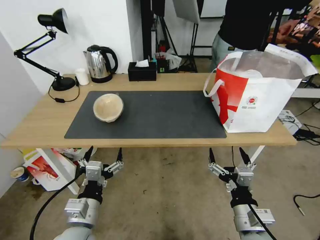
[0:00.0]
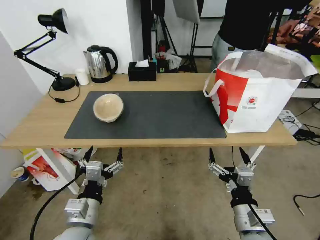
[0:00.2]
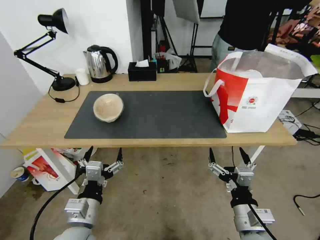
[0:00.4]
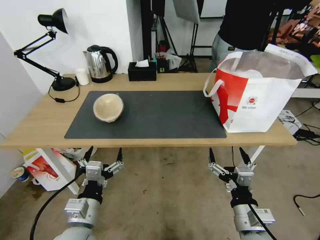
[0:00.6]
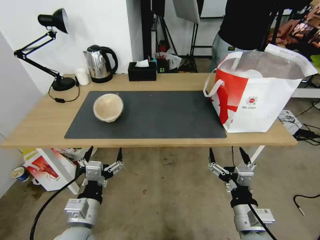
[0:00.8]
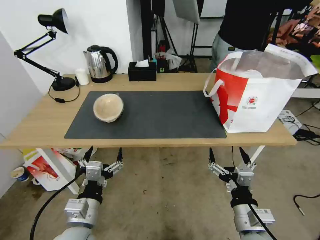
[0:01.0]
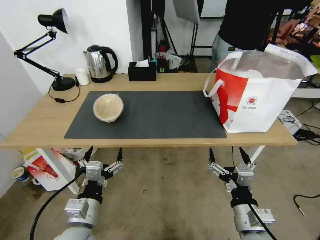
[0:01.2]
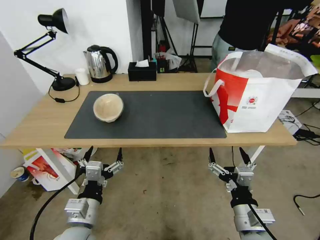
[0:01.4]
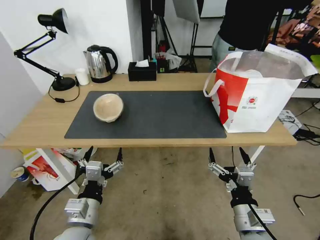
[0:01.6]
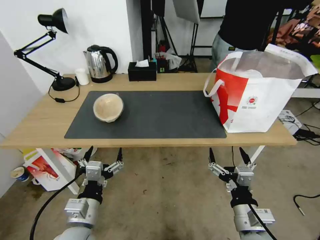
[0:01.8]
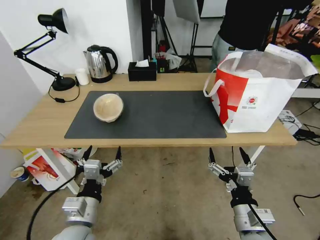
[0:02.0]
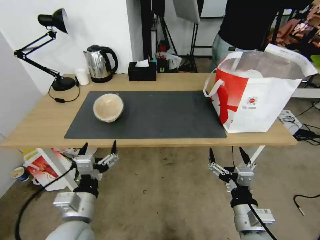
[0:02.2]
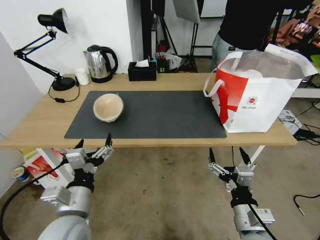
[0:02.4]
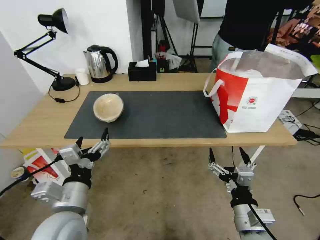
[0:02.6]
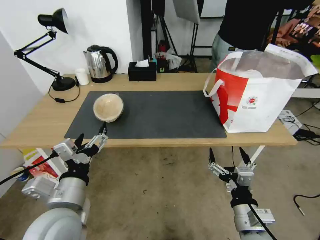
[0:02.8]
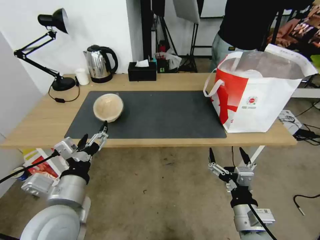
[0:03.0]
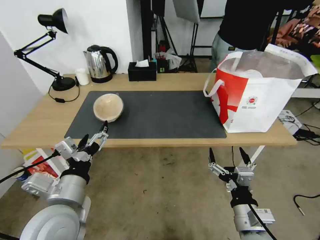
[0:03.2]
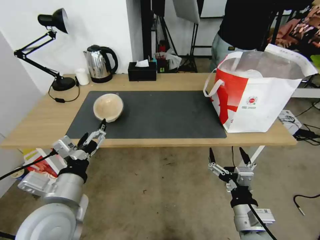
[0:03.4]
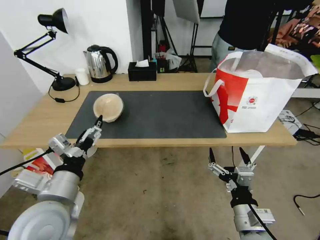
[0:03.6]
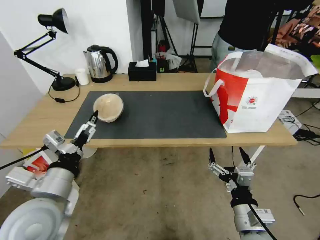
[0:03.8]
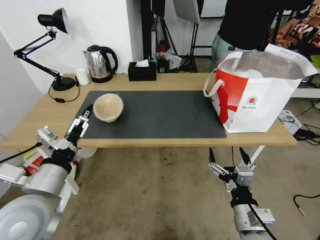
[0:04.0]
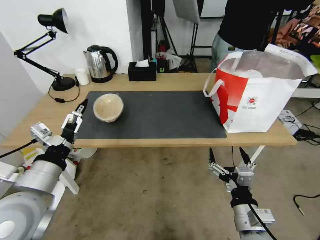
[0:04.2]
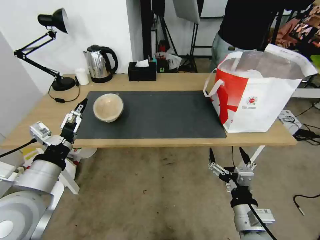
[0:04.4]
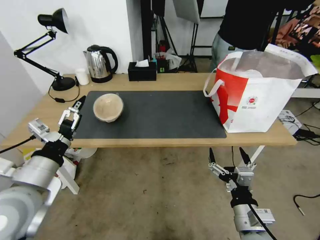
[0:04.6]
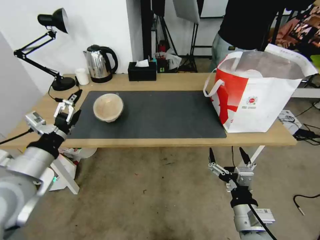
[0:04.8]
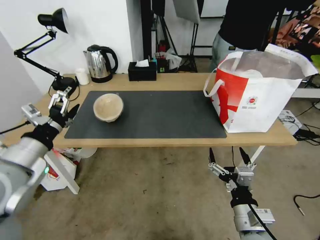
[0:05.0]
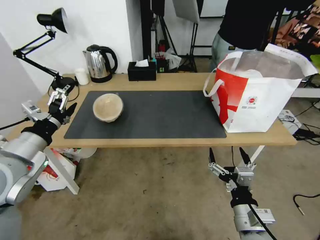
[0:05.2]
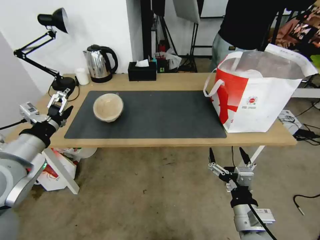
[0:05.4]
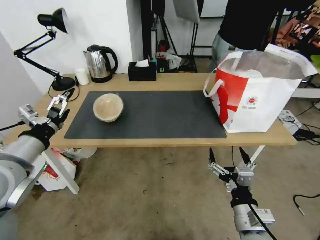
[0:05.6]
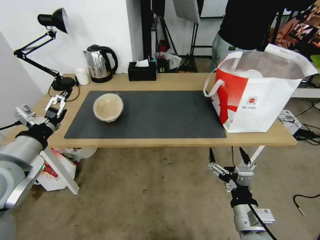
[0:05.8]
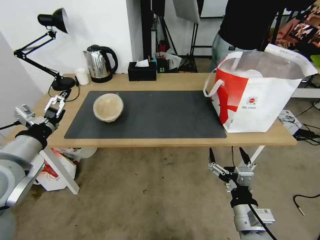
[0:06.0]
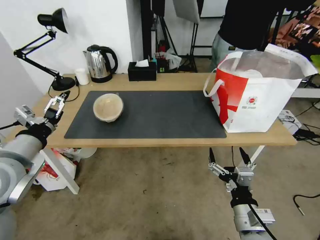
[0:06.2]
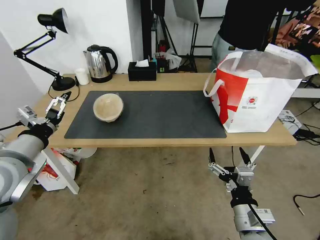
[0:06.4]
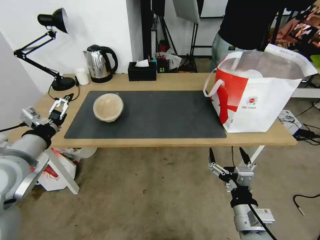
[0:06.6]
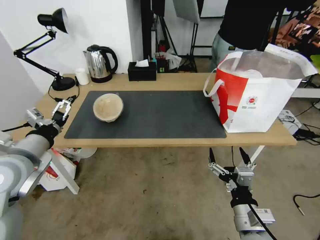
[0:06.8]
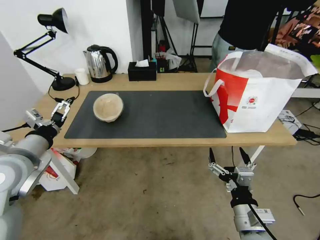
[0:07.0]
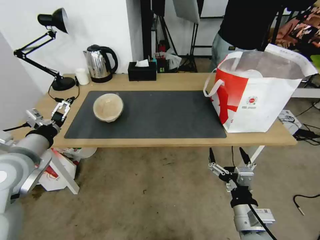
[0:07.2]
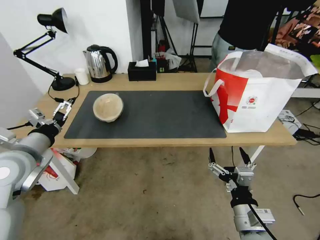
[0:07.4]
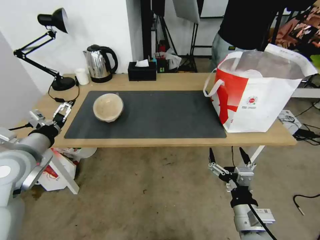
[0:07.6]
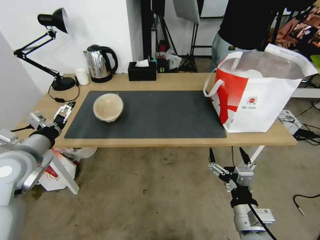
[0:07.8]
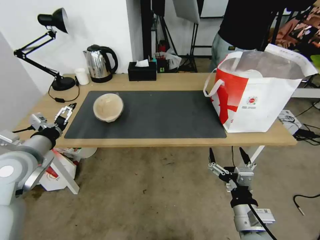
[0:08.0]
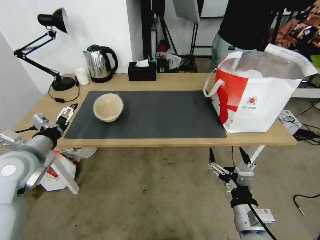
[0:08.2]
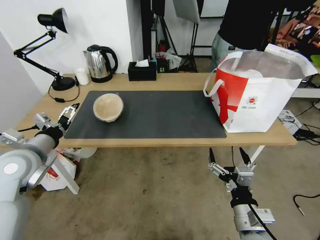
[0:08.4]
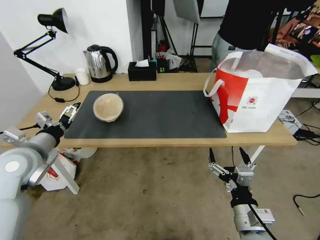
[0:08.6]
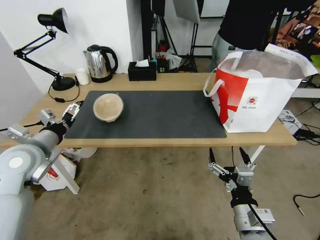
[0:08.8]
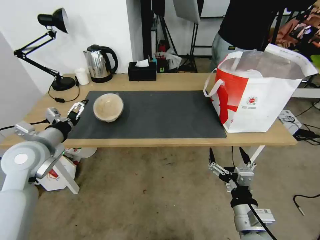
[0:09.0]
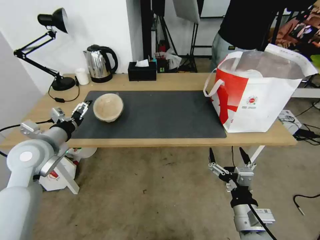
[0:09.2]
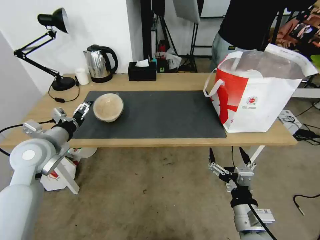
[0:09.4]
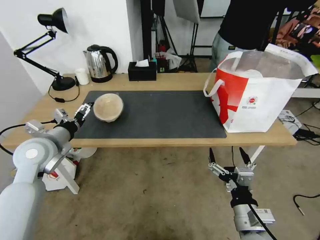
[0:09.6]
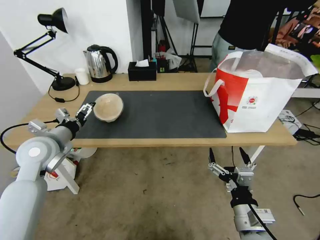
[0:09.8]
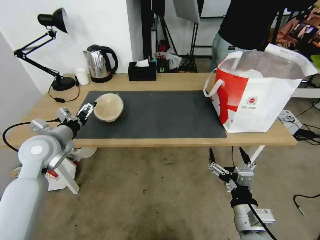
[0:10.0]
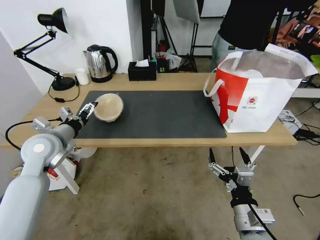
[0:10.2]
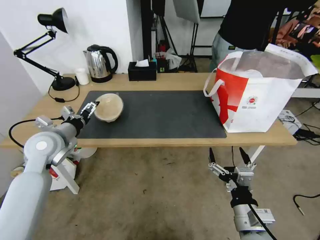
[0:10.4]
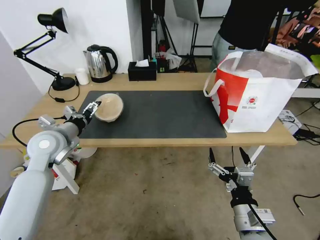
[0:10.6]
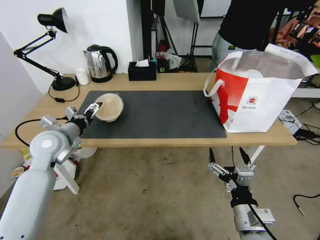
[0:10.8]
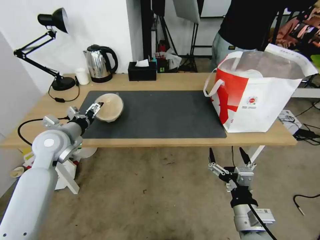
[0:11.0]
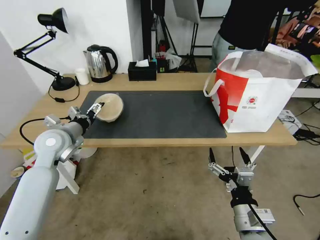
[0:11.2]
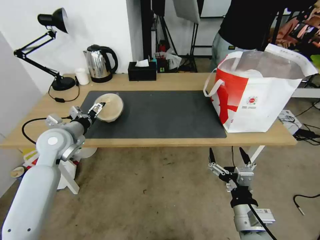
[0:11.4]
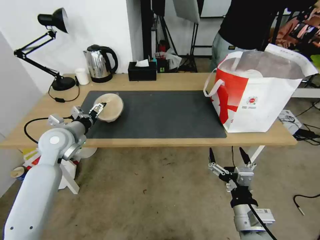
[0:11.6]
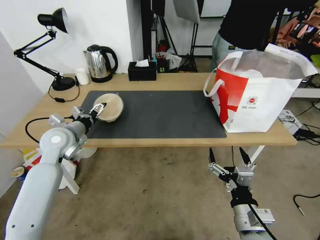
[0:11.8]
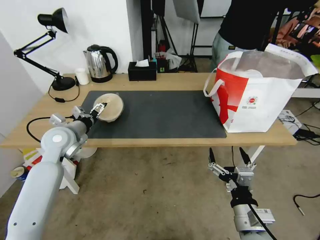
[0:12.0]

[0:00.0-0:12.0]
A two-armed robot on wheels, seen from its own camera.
Task of the whole recording: Pick up the trash from the table and place it into the takeout bag.
0:00.0 to 0:01.6: Both grippers stay about where they are.
0:01.6 to 0:03.0: The left gripper heads upward, covering approximately 10 cm.
0:03.0 to 0:04.4: The left gripper travels to the left by about 5 cm.
0:04.4 to 0:06.0: The left gripper moves to the left, some 5 cm.
0:06.0 to 0:07.6: The left gripper moves about 5 cm.
0:07.6 to 0:09.0: The grippers move only a little.
0:09.0 to 0:10.4: The left gripper shifts by about 5 cm.
0:10.4 to 0:12.0: There are only small adjustments of the grippers.

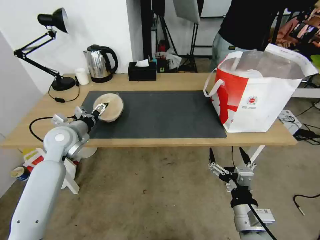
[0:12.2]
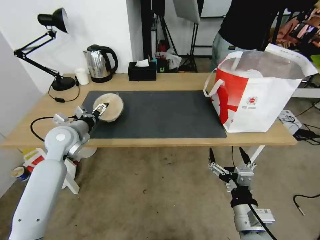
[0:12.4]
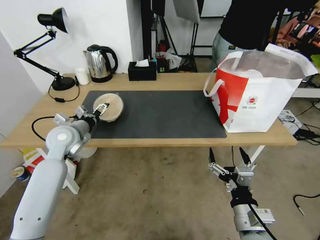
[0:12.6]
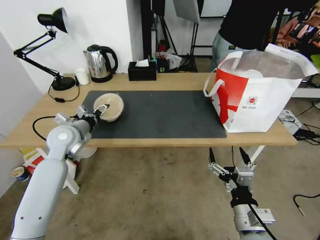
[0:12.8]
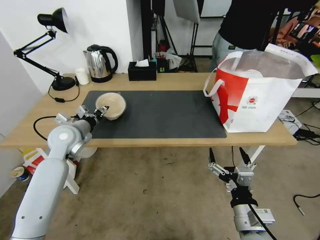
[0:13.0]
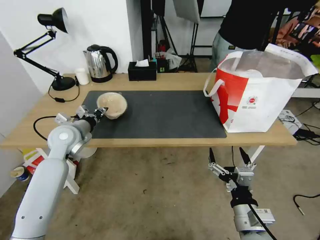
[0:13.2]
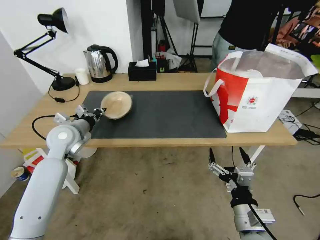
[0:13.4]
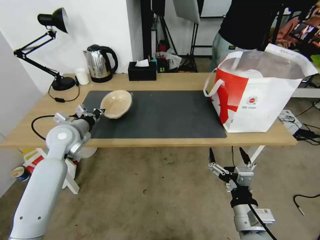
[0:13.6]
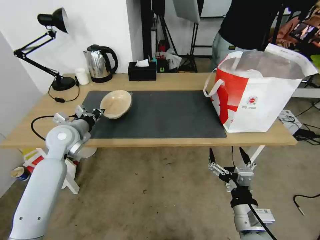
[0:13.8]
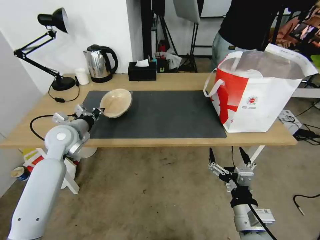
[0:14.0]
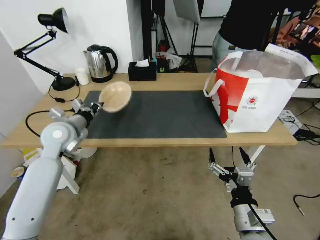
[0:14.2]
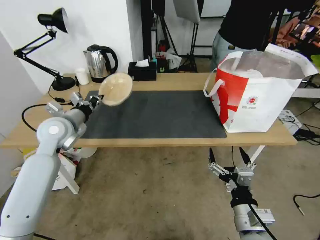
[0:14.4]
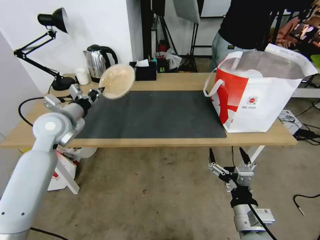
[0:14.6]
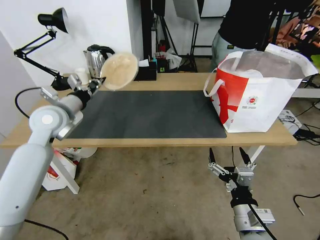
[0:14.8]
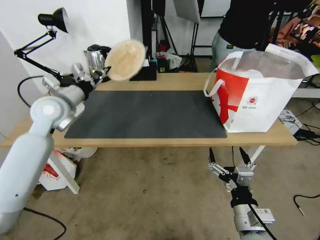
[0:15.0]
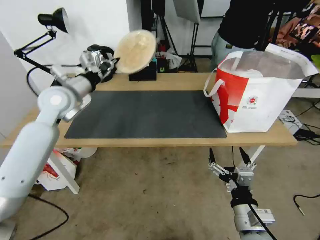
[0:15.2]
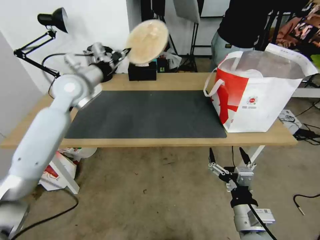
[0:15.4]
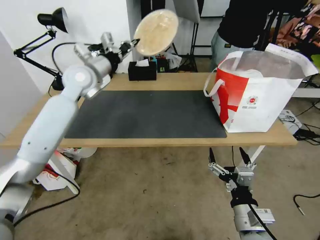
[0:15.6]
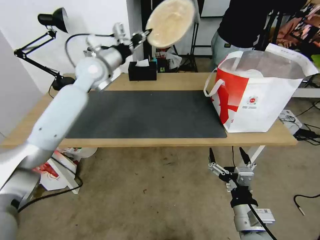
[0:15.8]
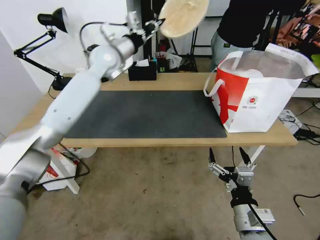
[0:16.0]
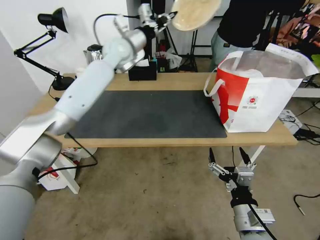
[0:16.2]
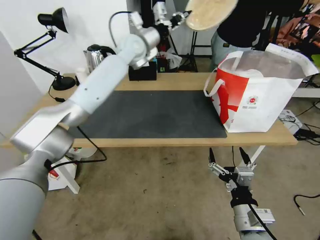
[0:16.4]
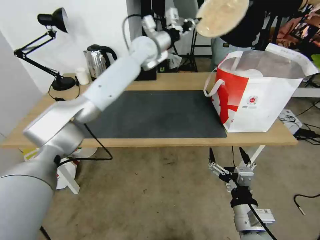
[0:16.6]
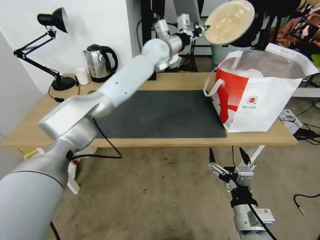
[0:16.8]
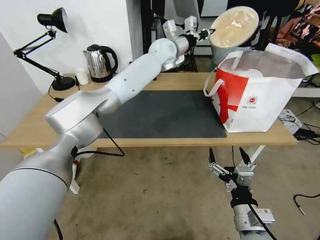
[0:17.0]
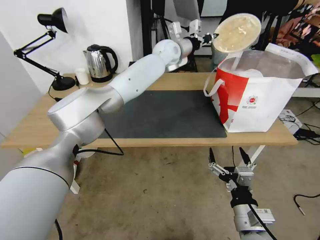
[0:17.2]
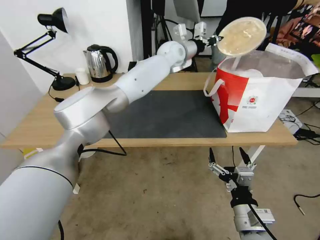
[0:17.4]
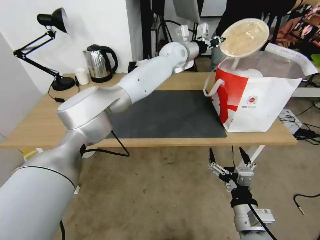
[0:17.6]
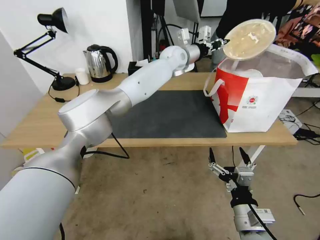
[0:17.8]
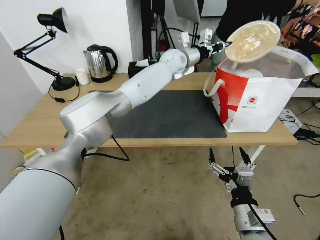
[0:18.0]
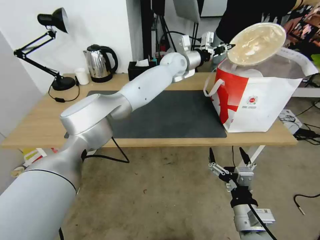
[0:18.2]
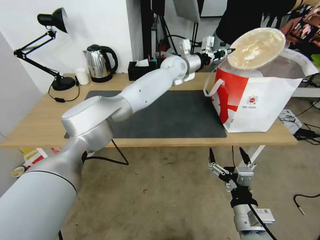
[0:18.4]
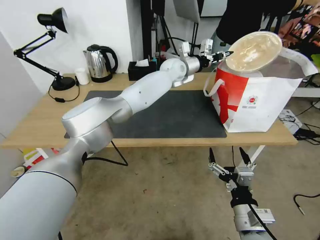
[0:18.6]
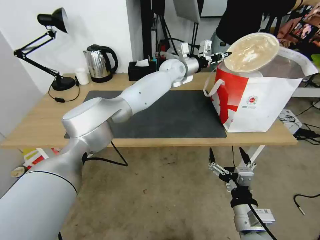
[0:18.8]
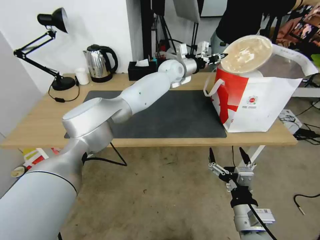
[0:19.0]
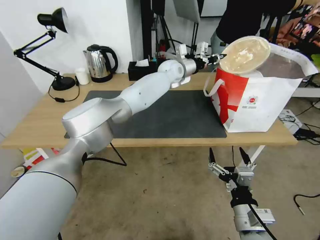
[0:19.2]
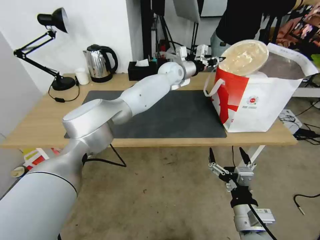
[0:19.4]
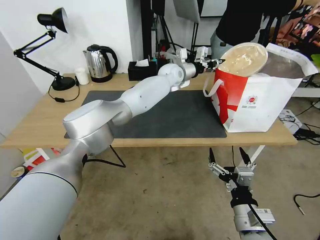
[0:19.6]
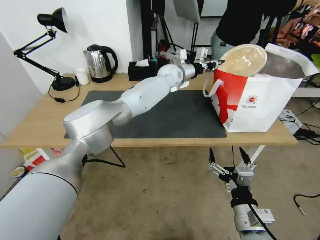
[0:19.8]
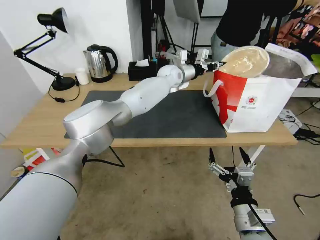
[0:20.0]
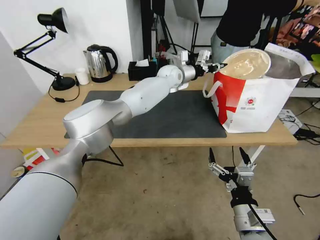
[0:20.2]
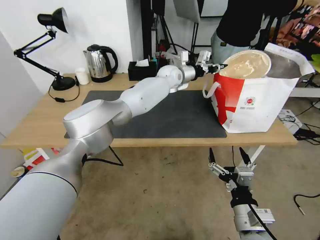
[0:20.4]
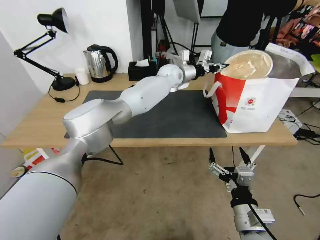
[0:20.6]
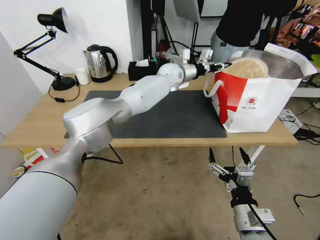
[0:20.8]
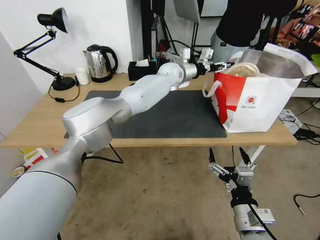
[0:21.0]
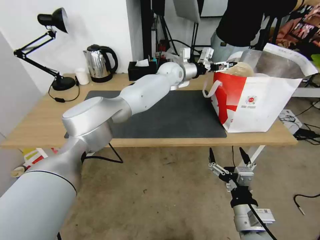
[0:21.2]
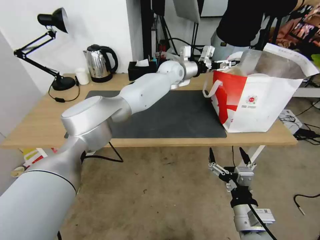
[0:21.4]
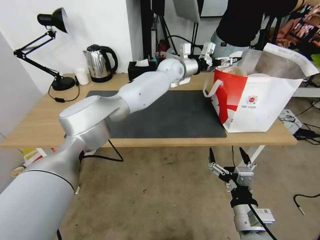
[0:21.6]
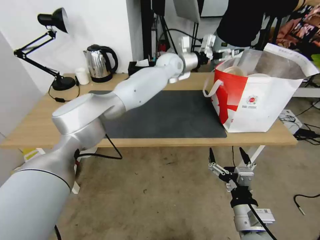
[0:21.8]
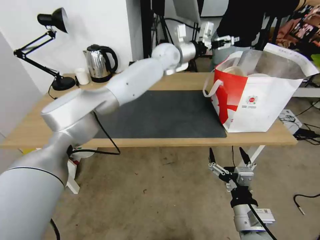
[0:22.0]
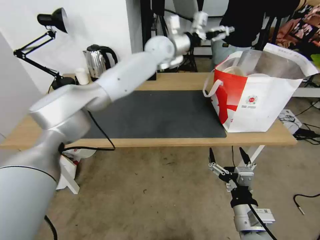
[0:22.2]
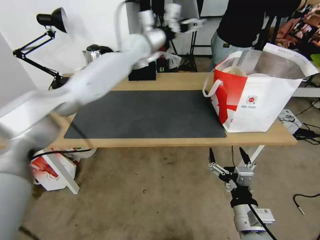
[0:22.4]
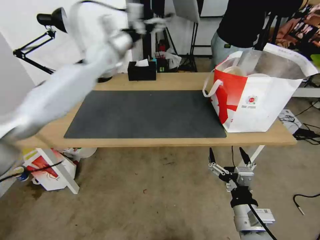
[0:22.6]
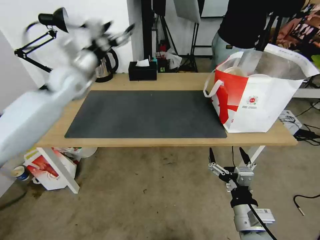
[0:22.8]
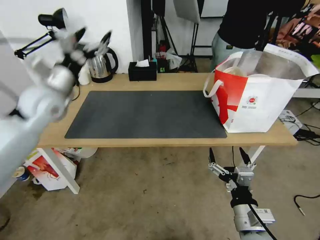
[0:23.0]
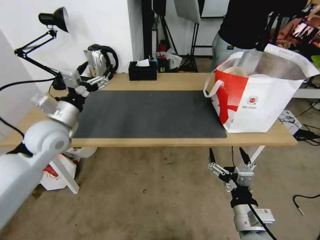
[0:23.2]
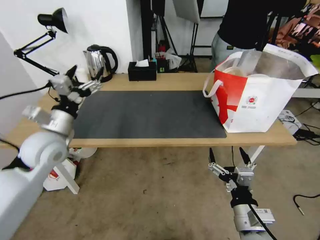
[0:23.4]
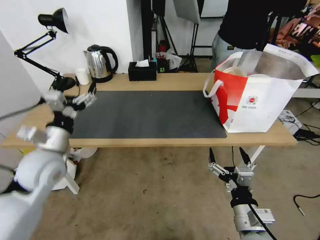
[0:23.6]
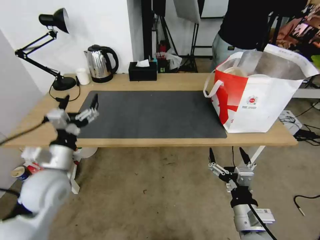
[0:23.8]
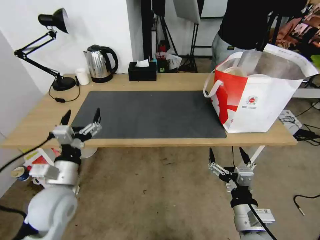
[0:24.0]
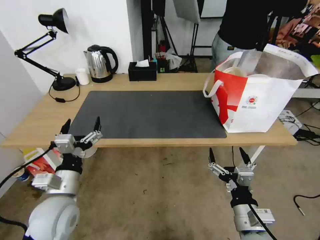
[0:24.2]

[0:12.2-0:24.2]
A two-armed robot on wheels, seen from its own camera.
Task of the whole recording: Pick up the trash from the table and place it into the takeout bag.
0:12.2 to 0:13.8: The left gripper closes up.
0:13.8 to 0:15.2: The left gripper goes about 10 cm upward.
0:15.2 to 0:16.6: The left gripper heads to the right and forward, covering about 30 cm.
0:16.6 to 0:18.2: The left gripper is displaced to the right and downward by approximately 10 cm.
0:18.2 to 0:19.8: The grippers stay close to where they were, moving slightly.
0:19.8 to 0:21.2: The left gripper opens up.
0:21.2 to 0:22.6: The left gripper is displaced to the left and upward by about 20 cm.
0:22.6 to 0:24.2: The left gripper moves backward and downward, roughly 50 cm.
